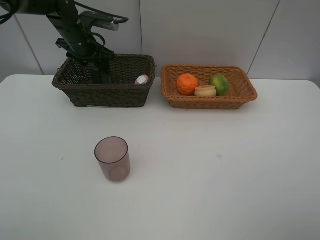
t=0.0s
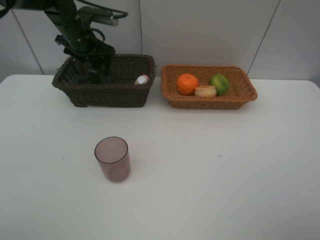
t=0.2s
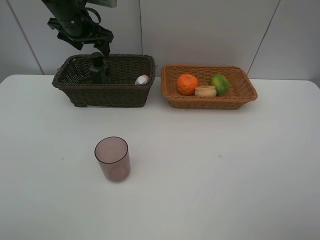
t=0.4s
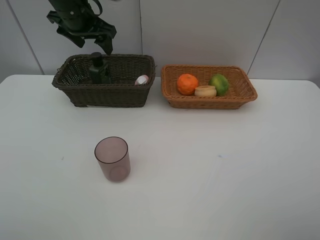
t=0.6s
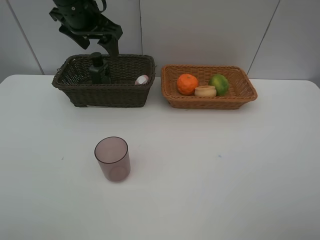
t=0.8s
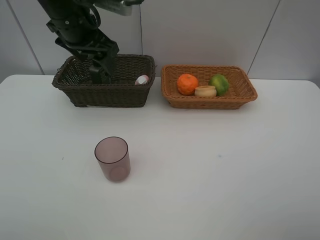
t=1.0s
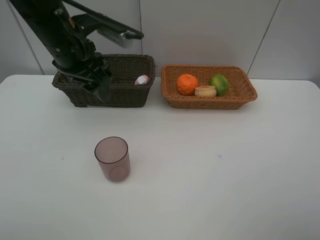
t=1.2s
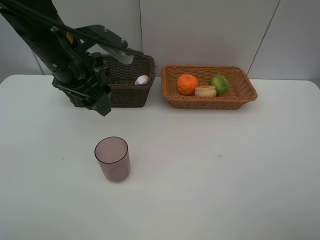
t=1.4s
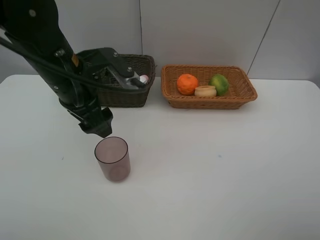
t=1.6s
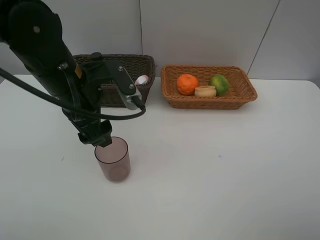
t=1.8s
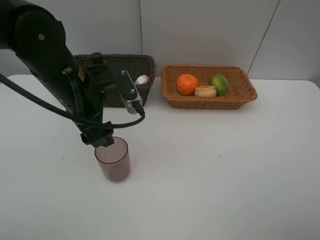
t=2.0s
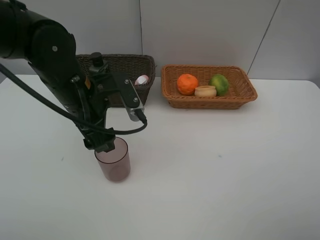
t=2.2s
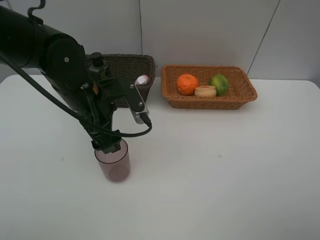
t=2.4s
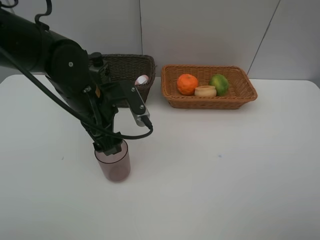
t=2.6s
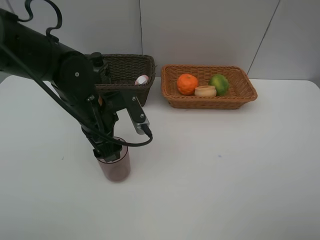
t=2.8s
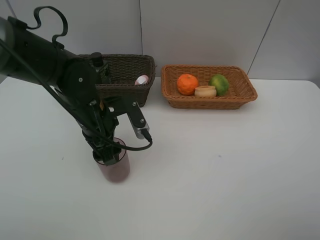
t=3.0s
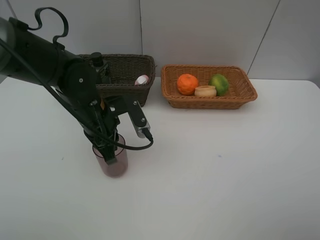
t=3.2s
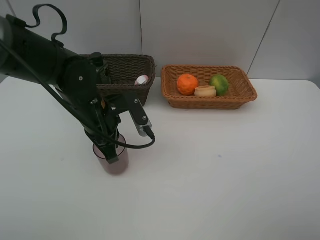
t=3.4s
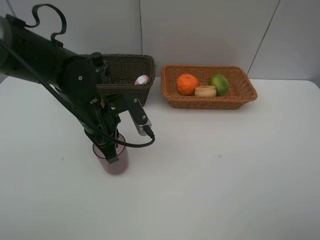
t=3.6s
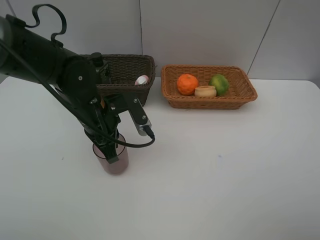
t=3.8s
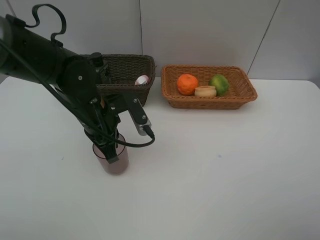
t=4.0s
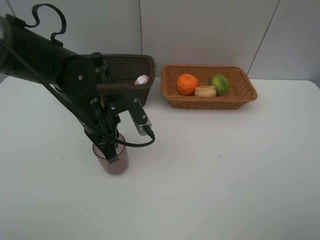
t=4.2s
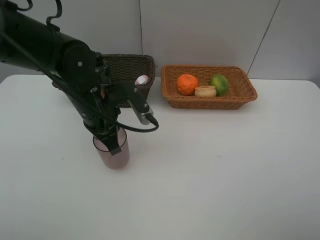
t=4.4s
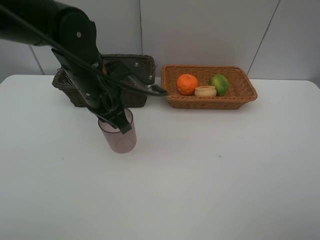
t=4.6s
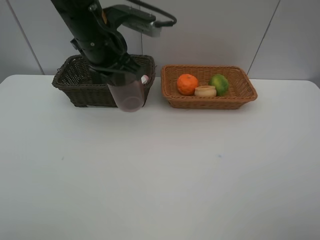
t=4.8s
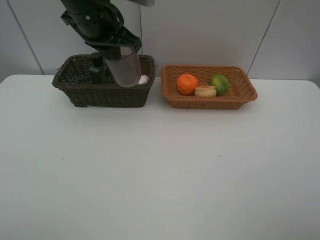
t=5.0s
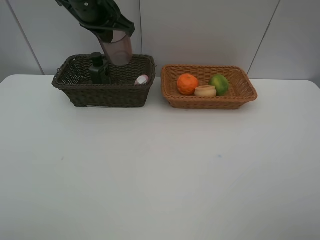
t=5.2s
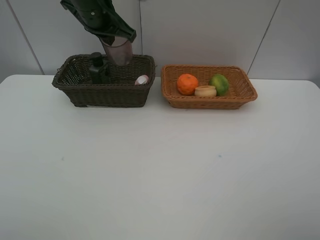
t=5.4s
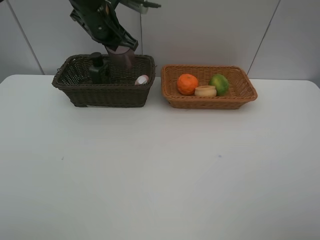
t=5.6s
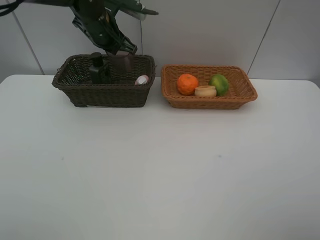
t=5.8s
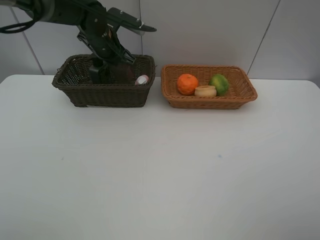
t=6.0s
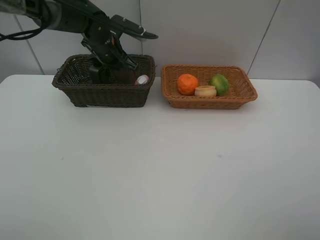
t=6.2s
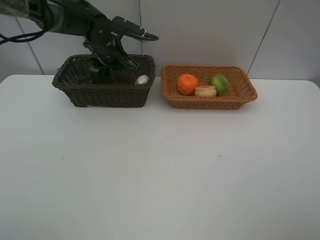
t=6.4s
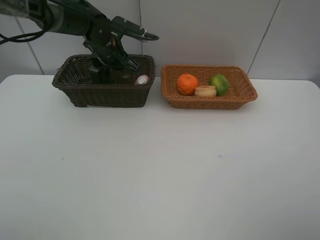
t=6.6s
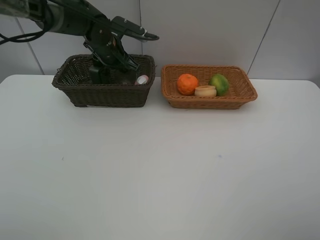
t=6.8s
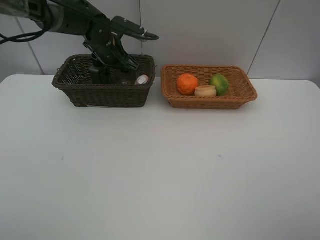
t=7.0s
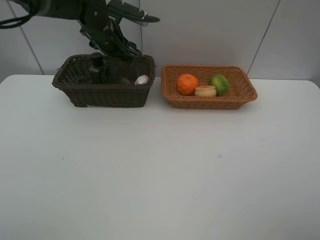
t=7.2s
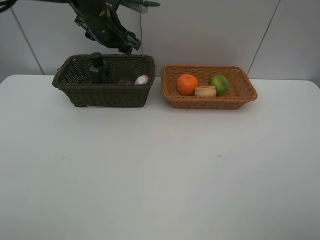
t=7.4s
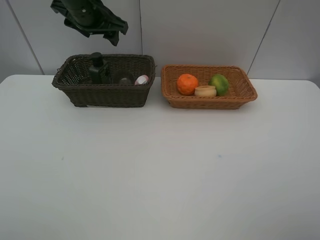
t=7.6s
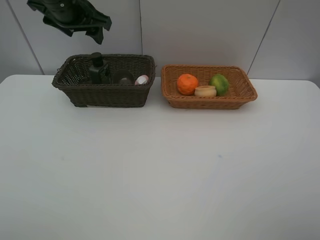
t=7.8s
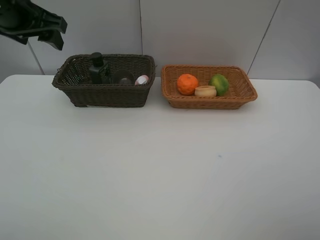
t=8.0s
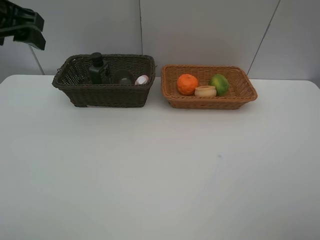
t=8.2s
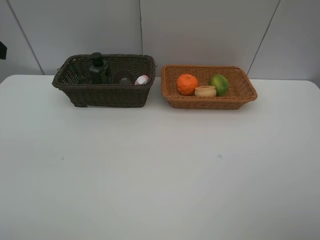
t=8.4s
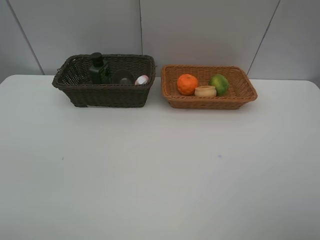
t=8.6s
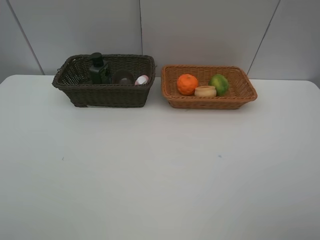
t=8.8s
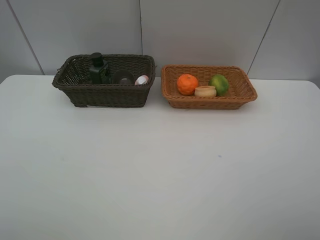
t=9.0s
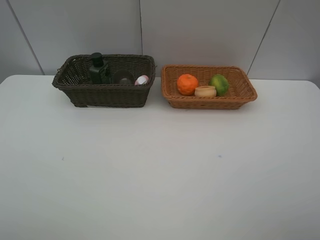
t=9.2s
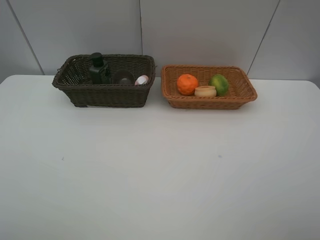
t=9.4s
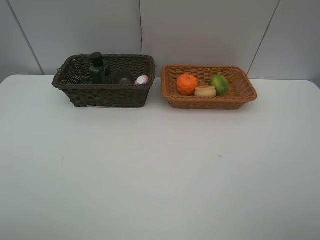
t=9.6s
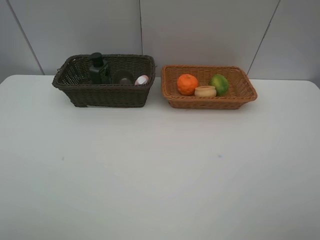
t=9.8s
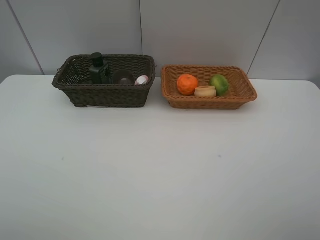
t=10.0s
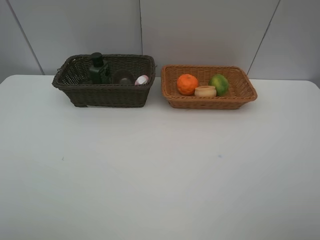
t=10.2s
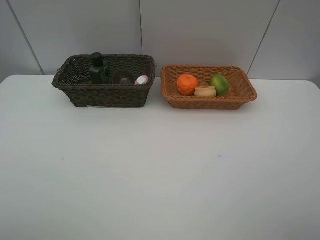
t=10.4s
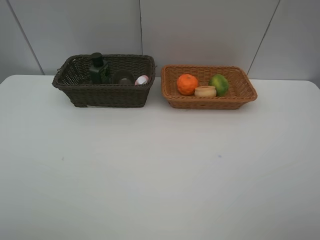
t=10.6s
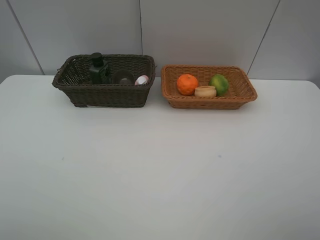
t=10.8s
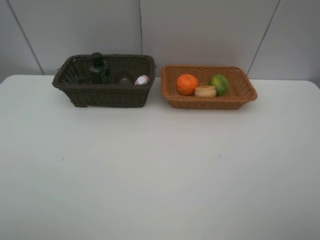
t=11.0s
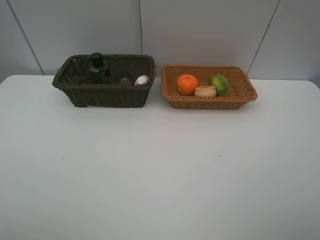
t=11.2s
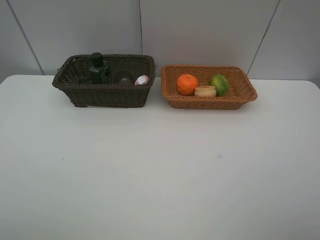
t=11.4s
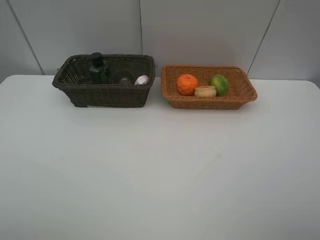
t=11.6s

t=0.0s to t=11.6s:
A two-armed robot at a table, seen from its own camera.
Task of the whole recording: place multiple objects separately in different baskets.
t=0.0s to t=1.4s: The left gripper moves backward, approximately 20 cm.
t=1.4s to t=2.8s: The left gripper is displaced downward by roughly 10 cm.
t=2.8s to t=4.4s: The left gripper closes.
t=4.4s to t=5.8s: The left gripper is displaced forward by roughly 15 cm.
t=5.8s to t=7.2s: The left gripper opens.
t=7.2s to t=8.8s: The left gripper is displaced backward and to the left by approximately 40 cm.
